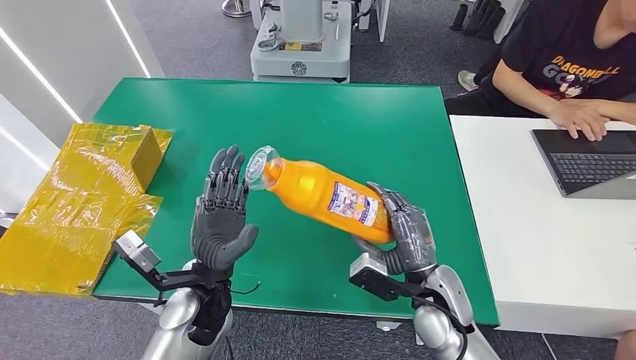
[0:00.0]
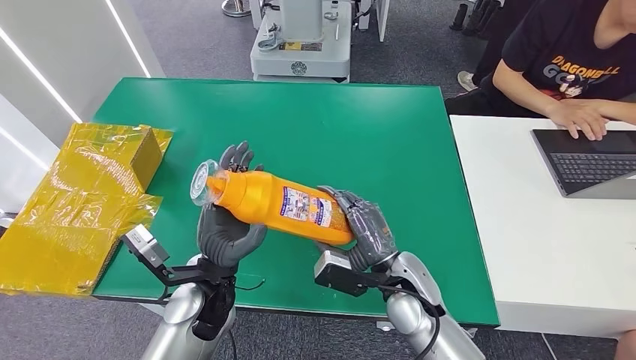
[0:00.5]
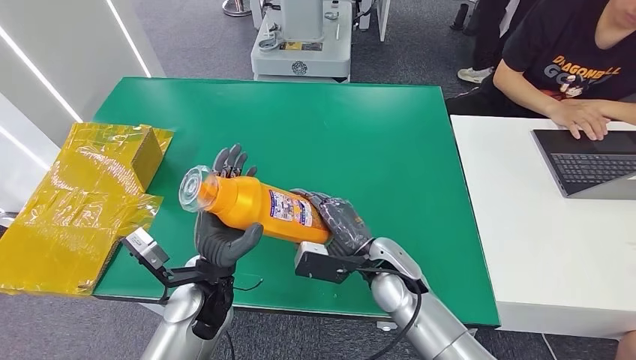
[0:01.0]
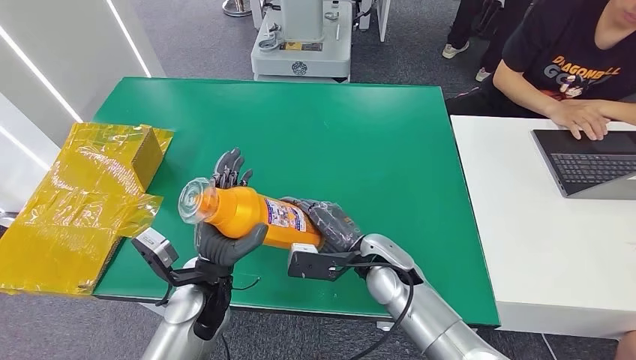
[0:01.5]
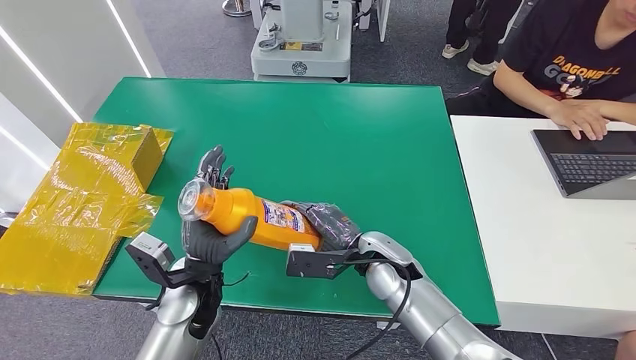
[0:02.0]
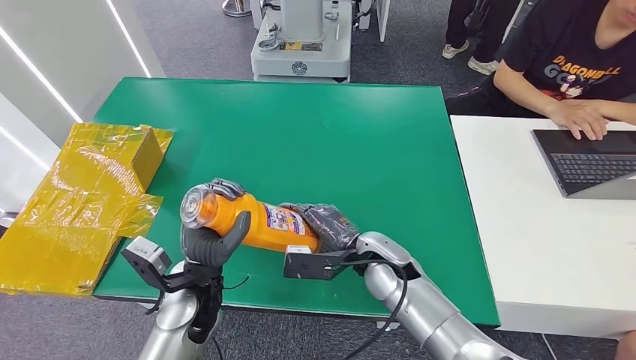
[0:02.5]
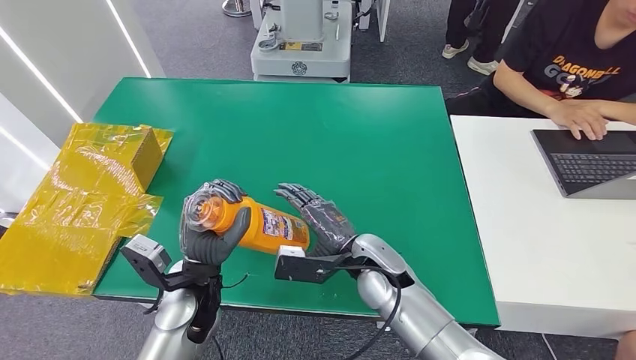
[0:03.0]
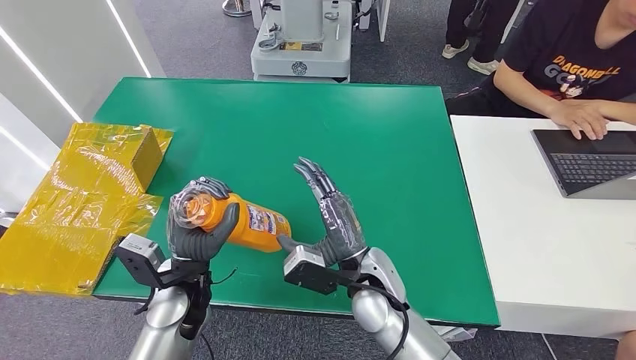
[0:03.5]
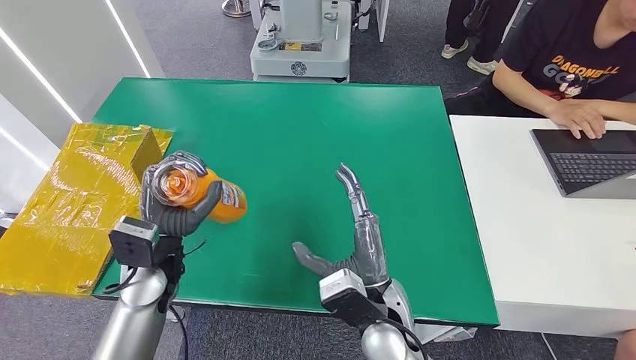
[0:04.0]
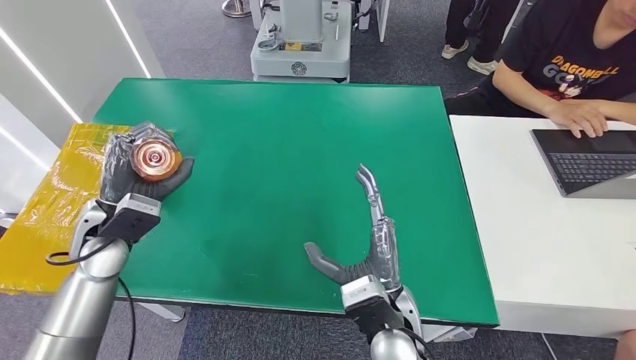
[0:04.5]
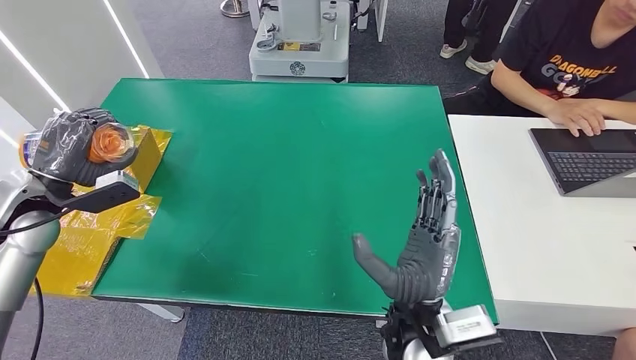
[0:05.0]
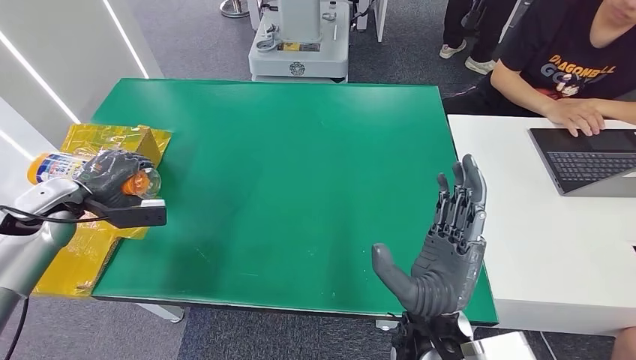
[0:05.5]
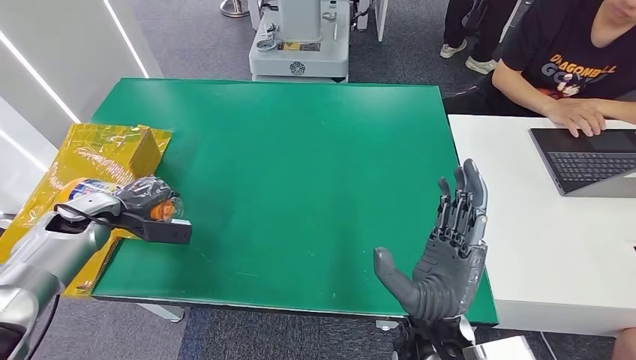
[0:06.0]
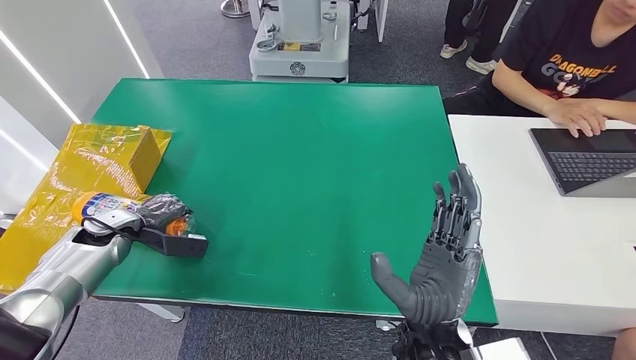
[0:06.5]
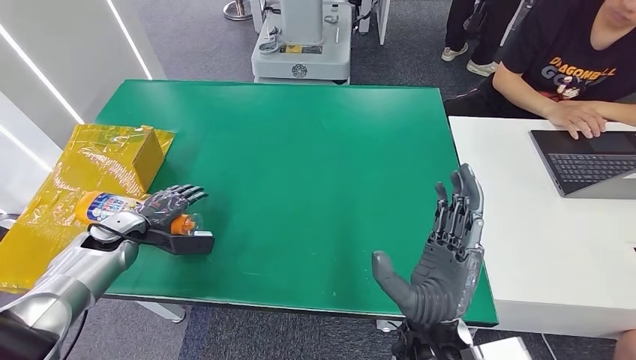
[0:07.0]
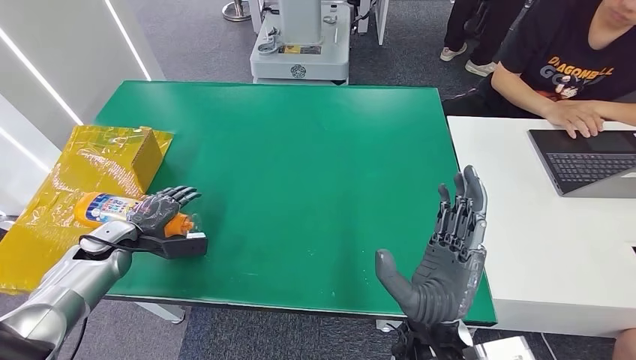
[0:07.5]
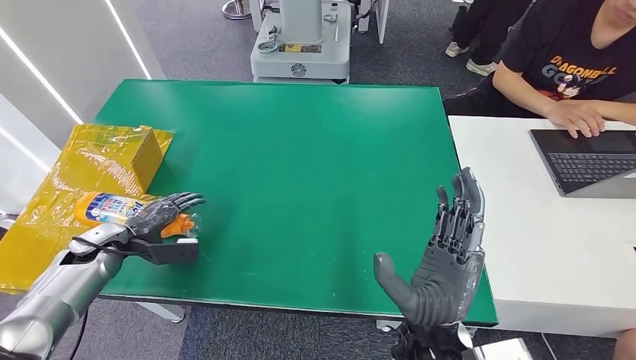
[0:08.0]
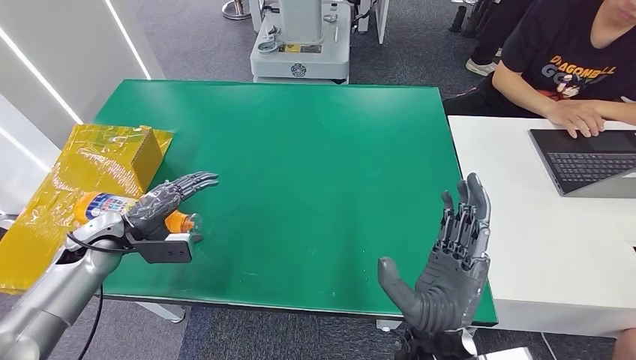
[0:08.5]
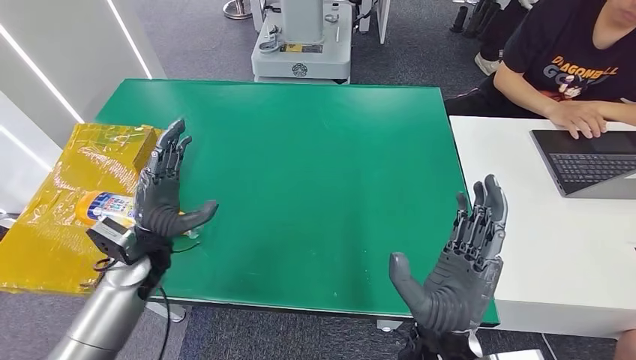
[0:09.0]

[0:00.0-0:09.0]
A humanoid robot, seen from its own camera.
Step, 0:00.0 to 0:09.0: Turn the bottle to the front side.
0:00.0 to 0:02.0: The right hand goes approximately 10 cm to the left and forward.
0:02.0 to 0:04.5: The right hand shifts about 10 cm backward; the left hand is displaced to the left, upward and forward by about 20 cm.
0:04.5 to 0:07.0: The left hand travels downward and to the left by roughly 15 cm, while the right hand ends up roughly 5 cm from where it was.
0:07.0 to 0:09.0: The left hand travels to the right by about 15 cm.
